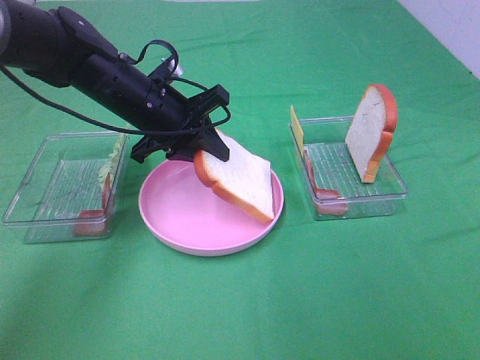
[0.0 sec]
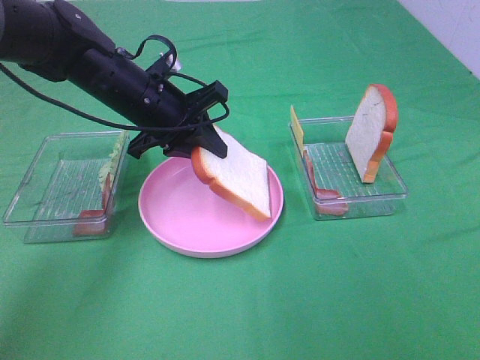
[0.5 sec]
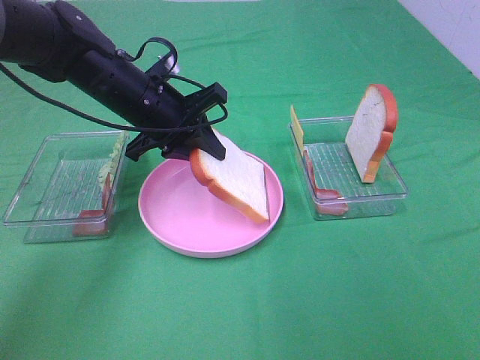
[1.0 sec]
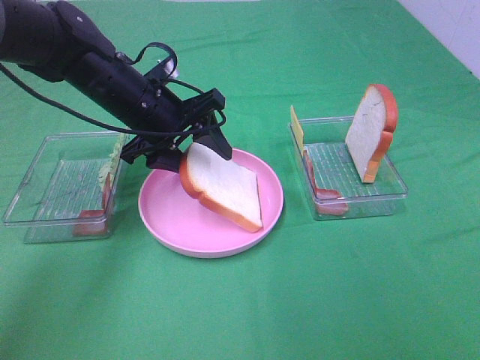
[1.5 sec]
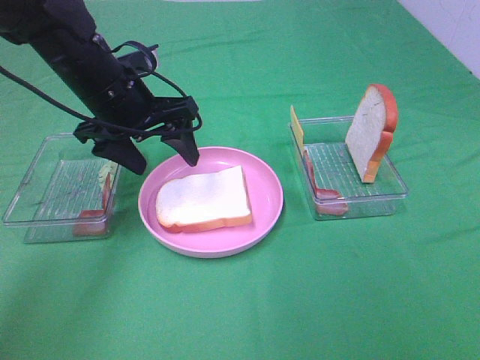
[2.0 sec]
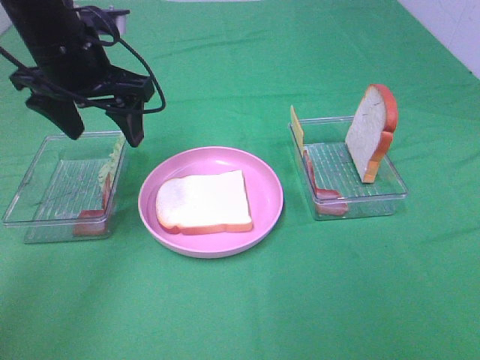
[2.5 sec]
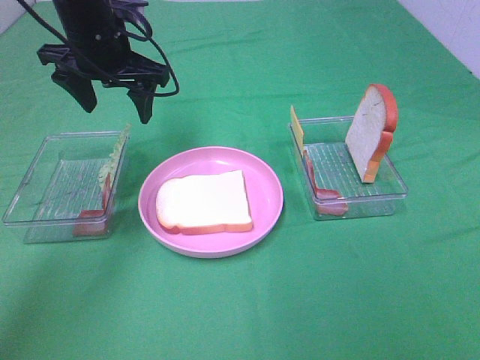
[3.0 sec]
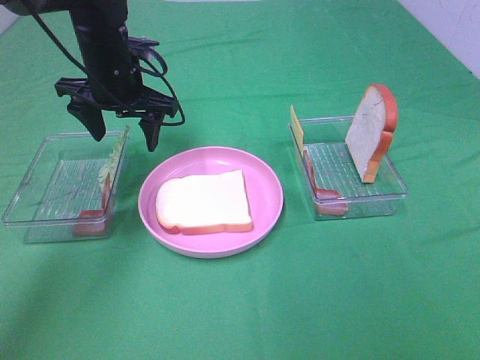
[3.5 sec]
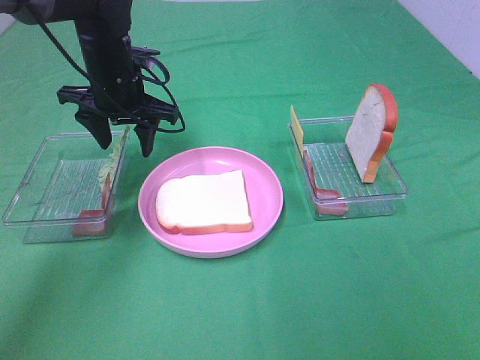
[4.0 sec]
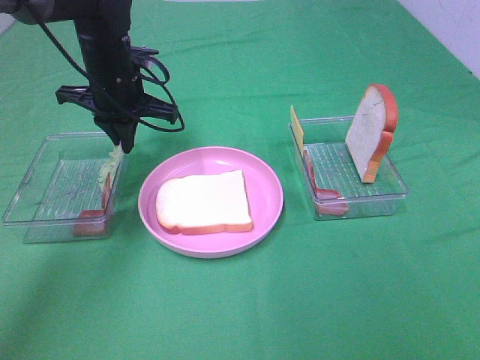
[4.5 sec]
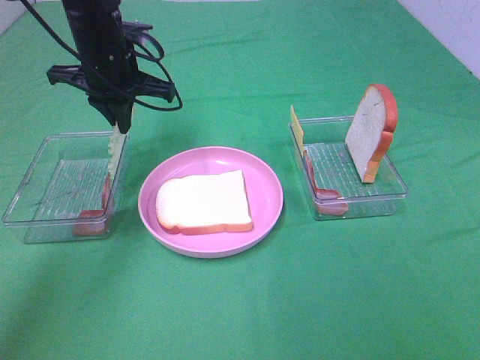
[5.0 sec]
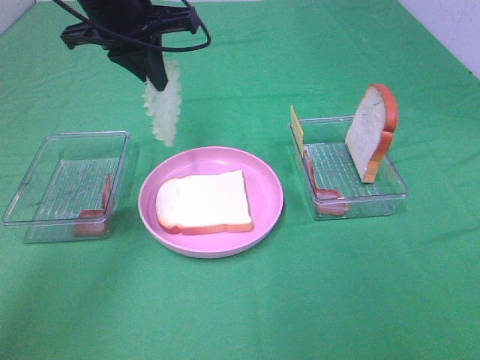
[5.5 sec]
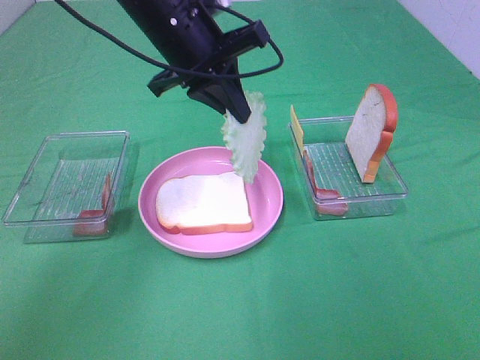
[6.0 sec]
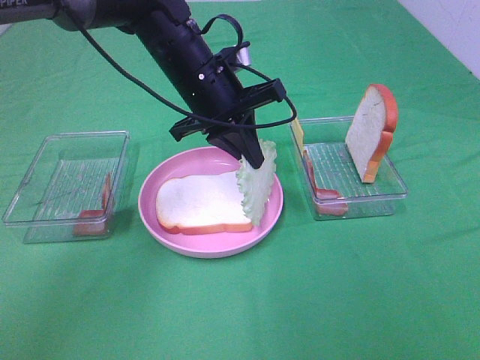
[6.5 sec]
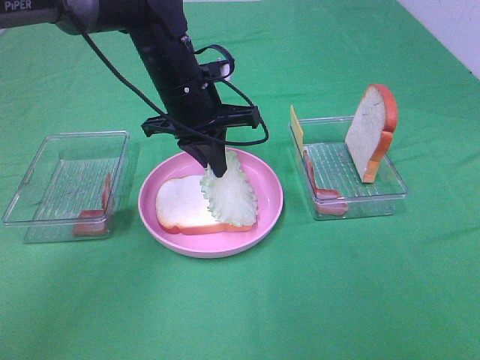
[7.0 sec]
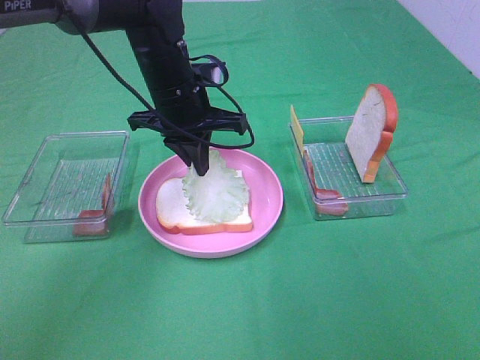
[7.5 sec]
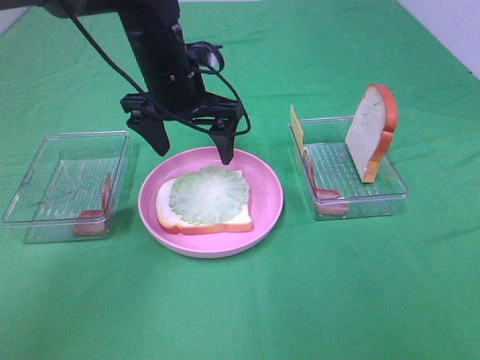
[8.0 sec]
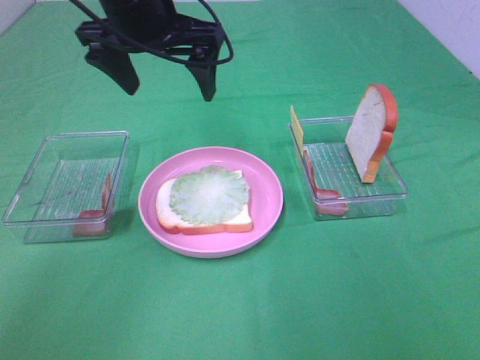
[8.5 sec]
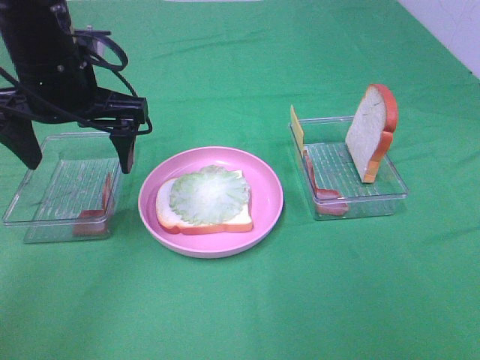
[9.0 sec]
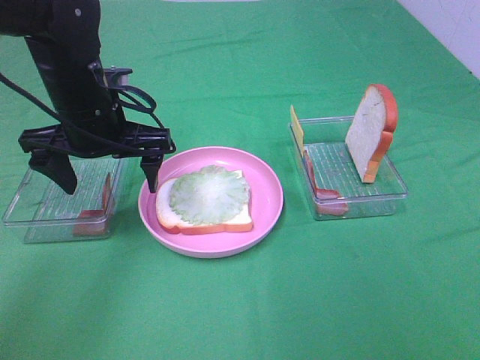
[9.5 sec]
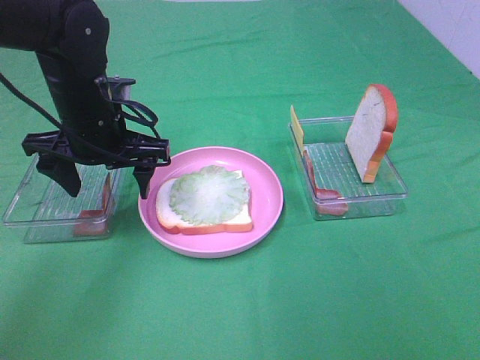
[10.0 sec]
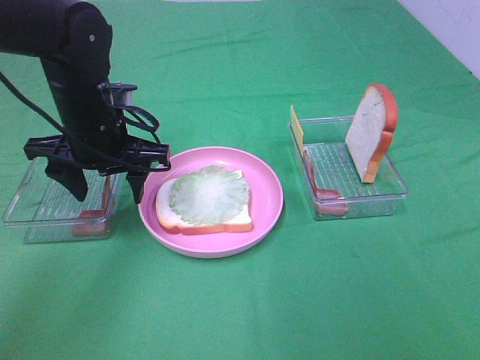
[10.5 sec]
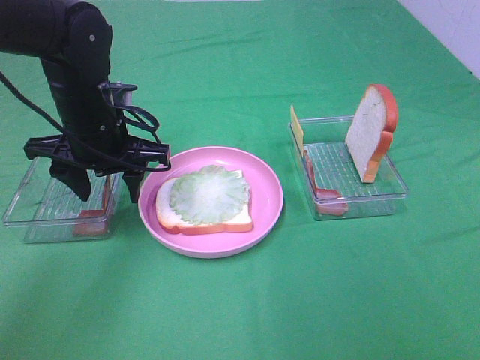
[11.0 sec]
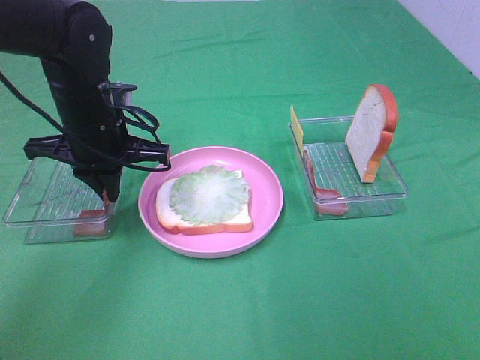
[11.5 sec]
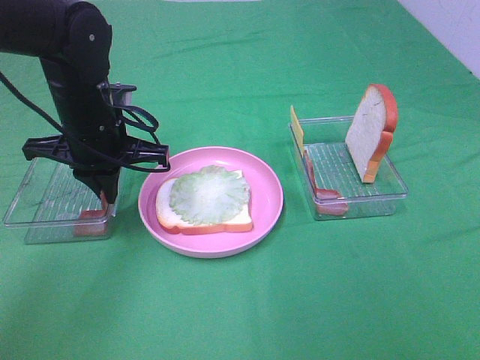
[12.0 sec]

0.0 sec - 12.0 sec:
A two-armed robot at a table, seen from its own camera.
Task of the whole recording: Make sandwiches.
Step, 0.0 sec - 2.0 sec: Left hand:place the bread slice on the plate.
Step, 2.5 sec - 4.5 sec: Left hand:grab the lettuce slice.
Step, 5.0 sec - 7.5 sec: Left hand:place the lettuce slice on the bread slice.
0.0 sec - 2.0 sec: The left gripper opens its fingers.
2.0 sec - 4.0 sec: The left gripper goes approximately 5 cm forward.
4.0 sec - 6.0 sec: The left gripper shifts some 15 cm to the right, upward and backward, and closes its fingers.
6.0 sec - 8.0 sec: The left gripper opens.
8.0 sec - 10.0 sec: The left gripper heads to the left and backward, covering some 10 cm, and moves some 10 cm upward and comes back.
10.0 sec - 12.0 sec: The left gripper closes up.

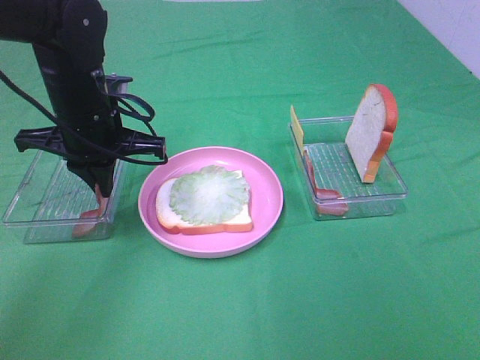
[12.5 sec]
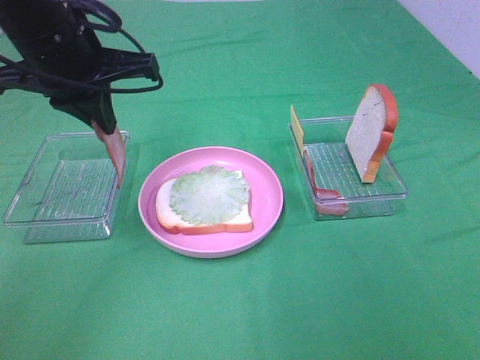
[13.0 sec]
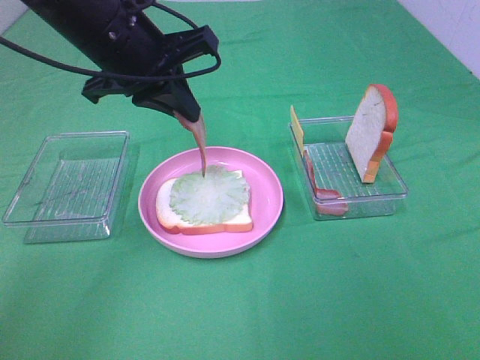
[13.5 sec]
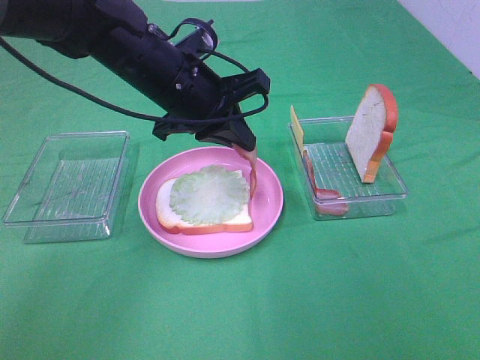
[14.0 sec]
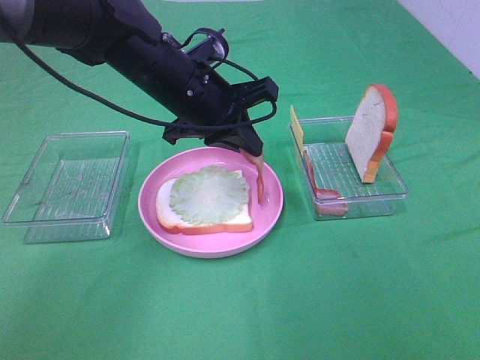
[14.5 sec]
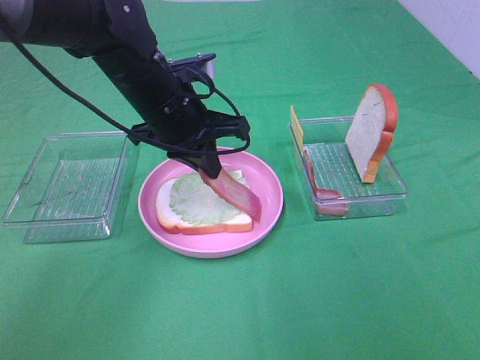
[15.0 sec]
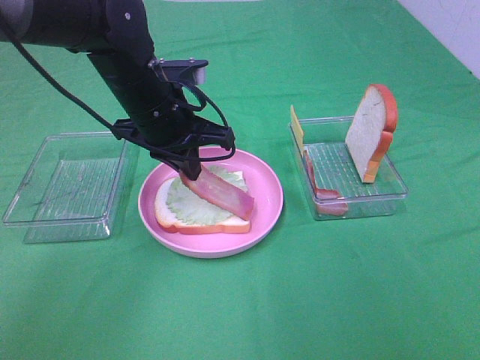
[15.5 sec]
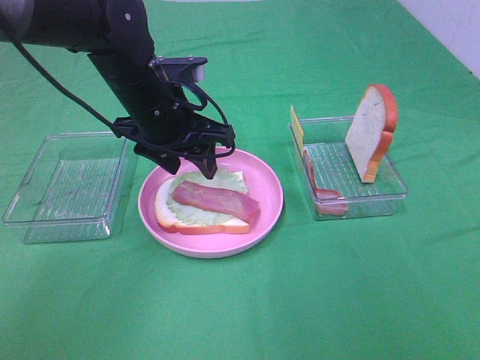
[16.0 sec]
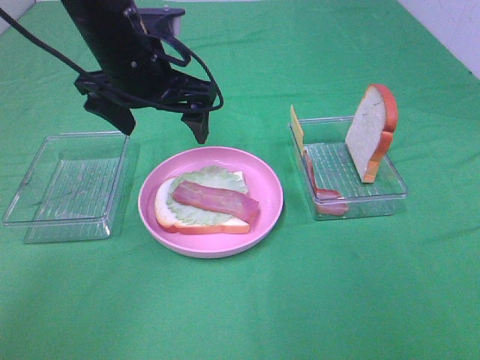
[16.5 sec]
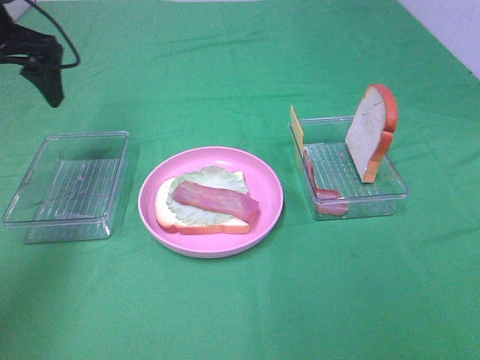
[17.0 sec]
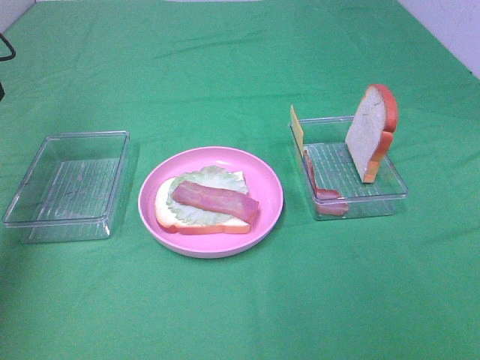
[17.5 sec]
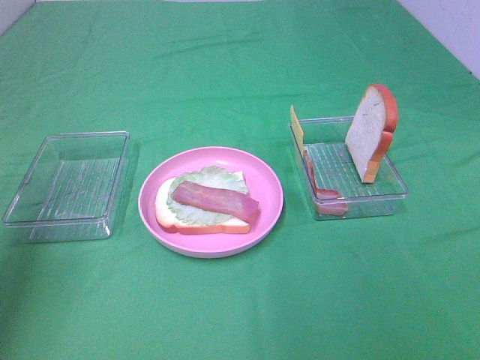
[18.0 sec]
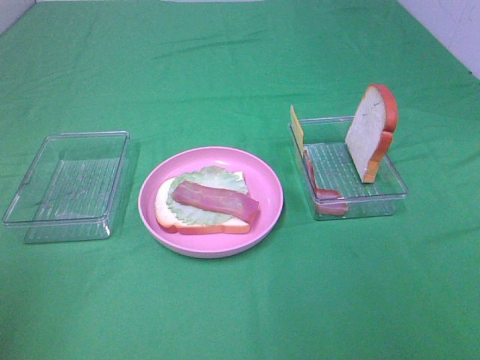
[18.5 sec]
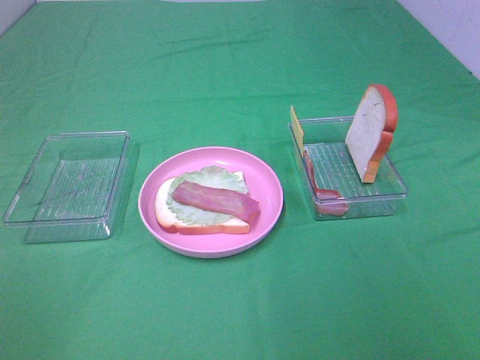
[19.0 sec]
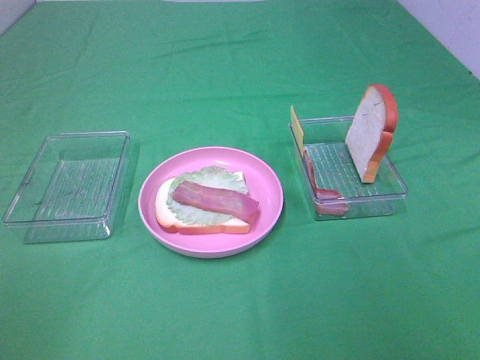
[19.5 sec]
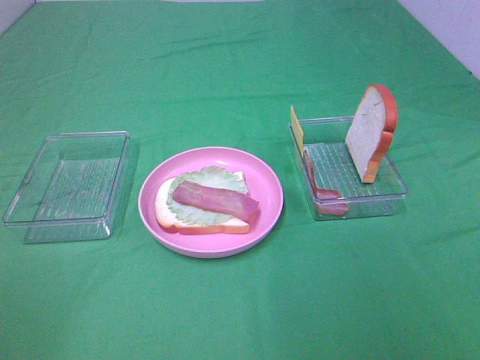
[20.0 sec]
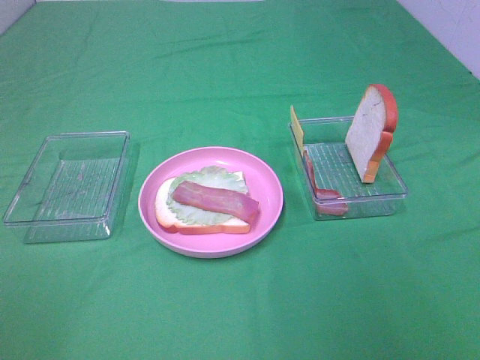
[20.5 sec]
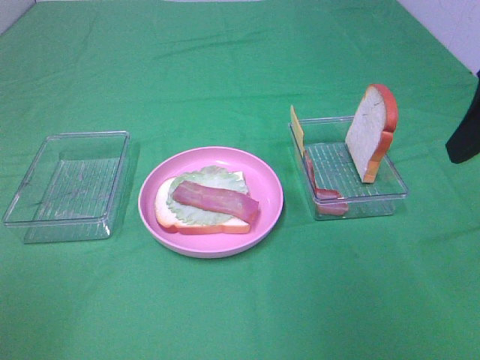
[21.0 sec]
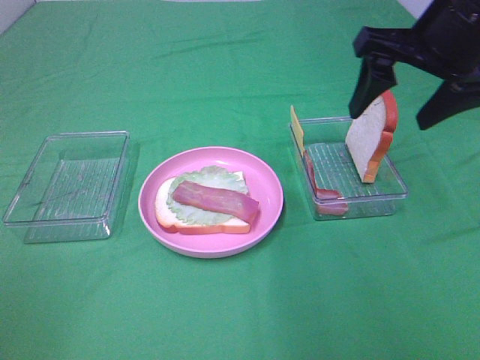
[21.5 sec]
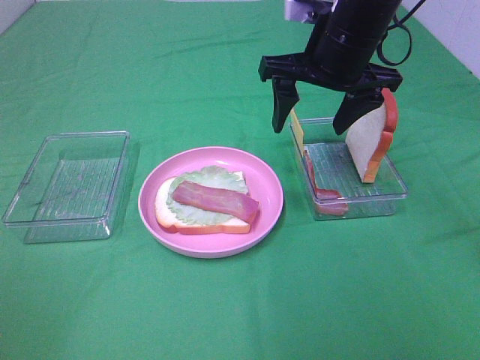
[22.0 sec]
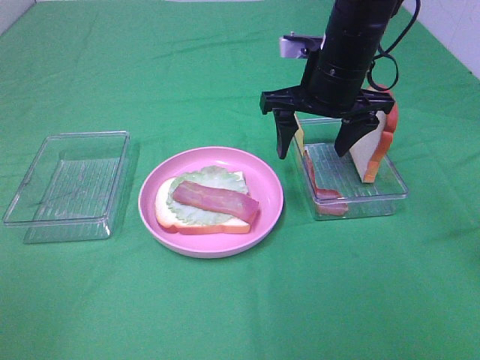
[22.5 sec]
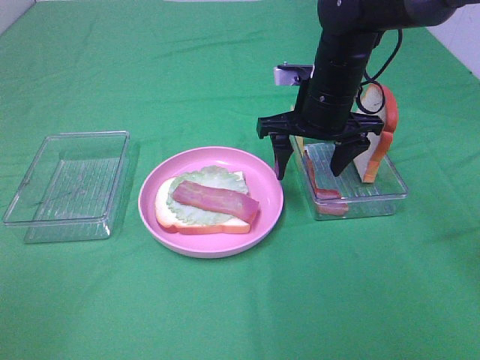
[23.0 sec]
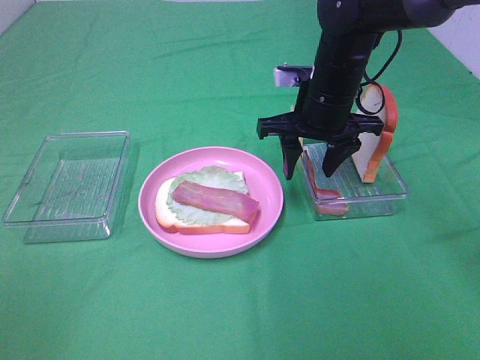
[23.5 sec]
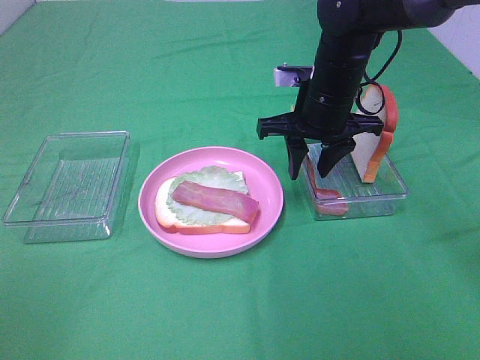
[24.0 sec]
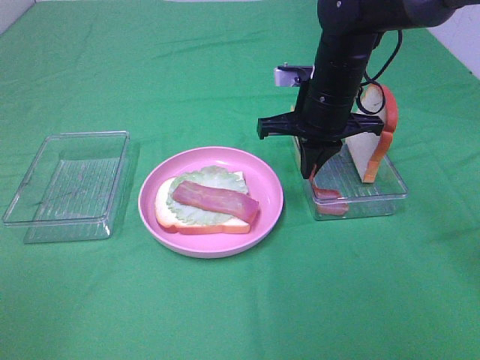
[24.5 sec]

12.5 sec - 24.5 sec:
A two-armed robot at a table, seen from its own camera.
Task of the whole recording: Make sandwiches.
Step, 13.0 sec - 16.0 sec: Left hand:place bacon on lettuce slice.
12.5 sec - 14.5 sec: The left gripper heads to the right, covering about 10 cm.
14.5 sec - 16.5 sec: The left gripper moves approximately 5 cm, and opens its fingers.
16.5 sec - 18.5 sec: The left gripper moves backward and to the left, some 35 cm.
20.5 sec - 22.5 sec: The right gripper goes about 35 cm forward and to the left.
22.5 sec - 24.5 sec: The right gripper closes its fingers.

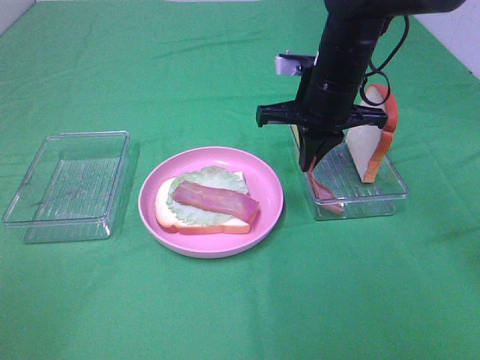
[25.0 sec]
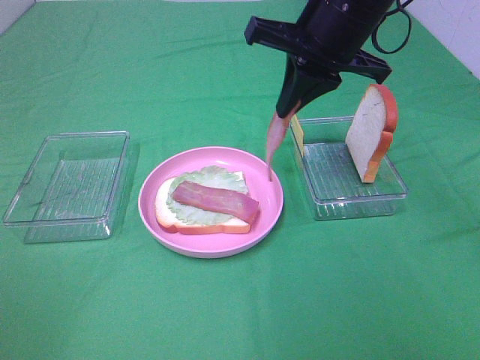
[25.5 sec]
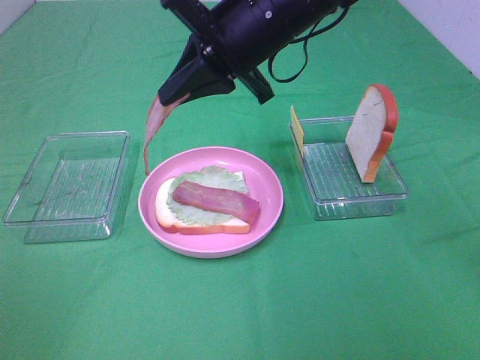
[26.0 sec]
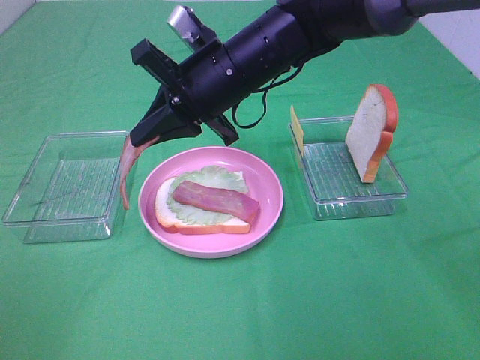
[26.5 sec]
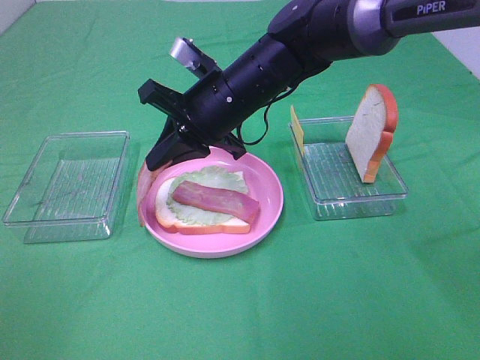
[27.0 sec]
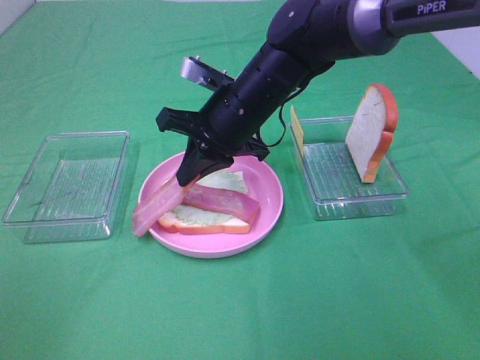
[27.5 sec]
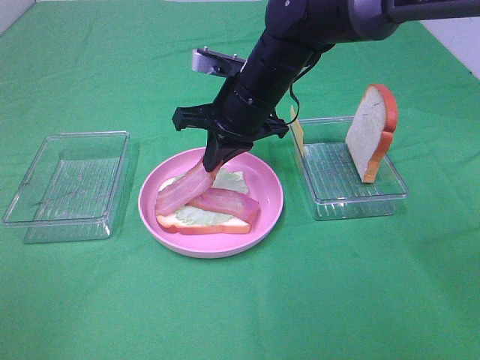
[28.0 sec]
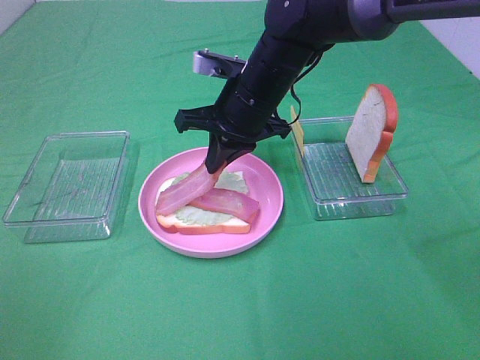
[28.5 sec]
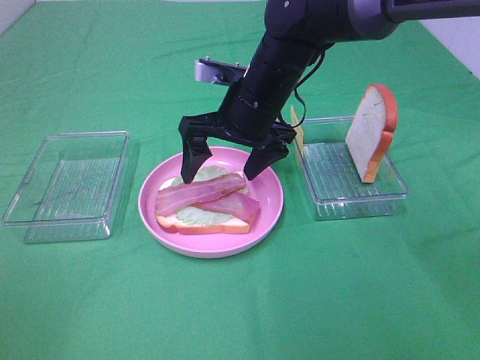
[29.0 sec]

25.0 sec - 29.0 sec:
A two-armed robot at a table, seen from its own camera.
Task of the whole recording: Make sandwiches.
25.0 sec - 27.0 sec: The right gripper is displaced to the left by approximately 10 cm.
27.0 sec - 29.0 sec: The right gripper opens.
